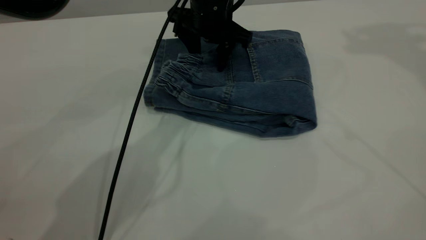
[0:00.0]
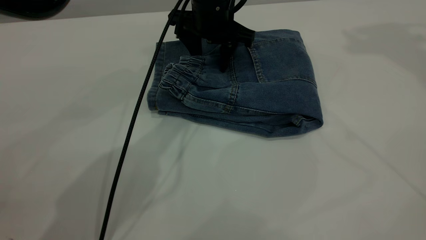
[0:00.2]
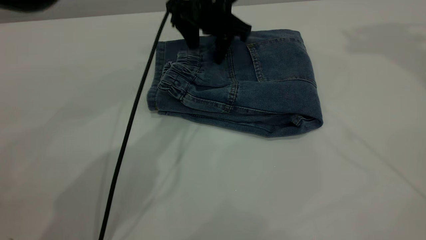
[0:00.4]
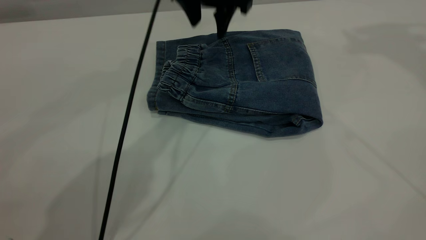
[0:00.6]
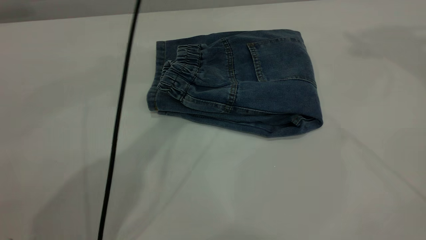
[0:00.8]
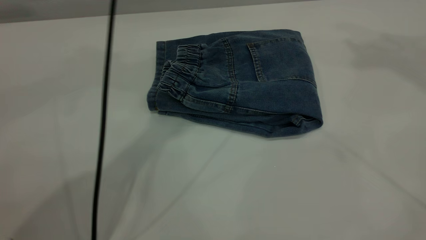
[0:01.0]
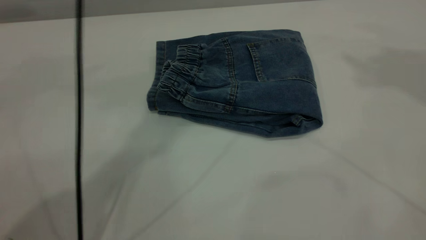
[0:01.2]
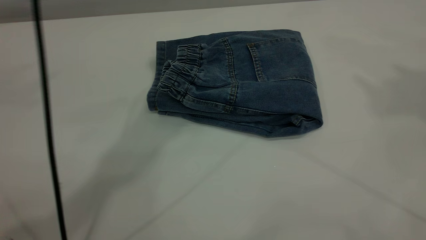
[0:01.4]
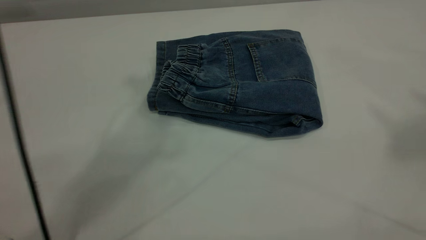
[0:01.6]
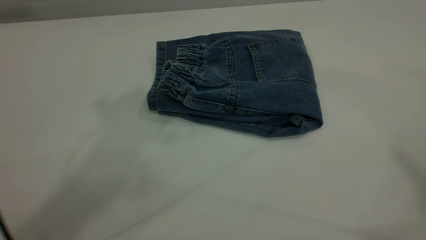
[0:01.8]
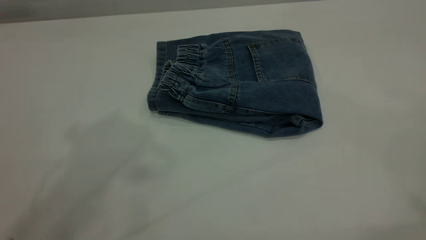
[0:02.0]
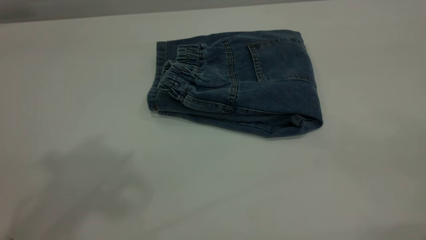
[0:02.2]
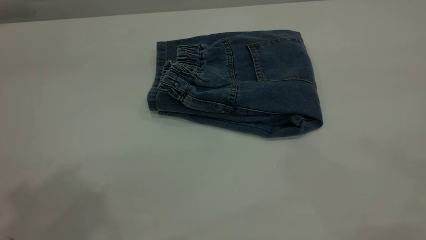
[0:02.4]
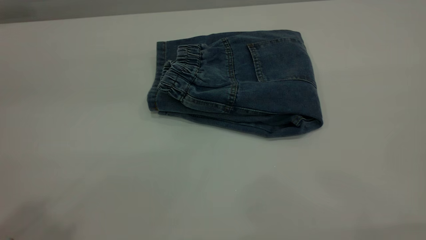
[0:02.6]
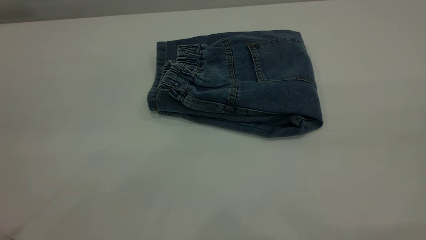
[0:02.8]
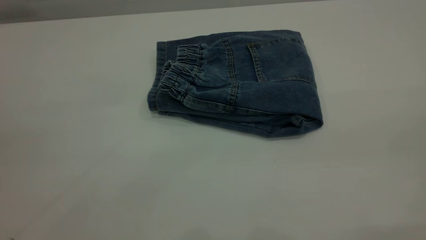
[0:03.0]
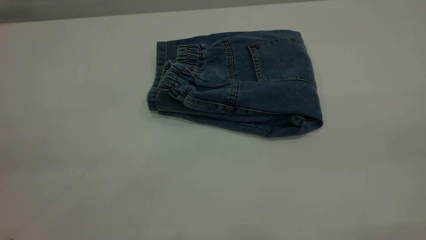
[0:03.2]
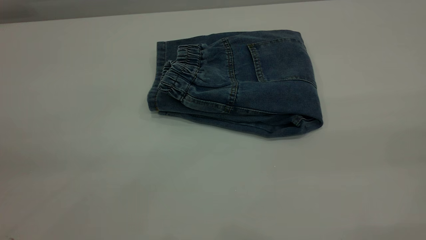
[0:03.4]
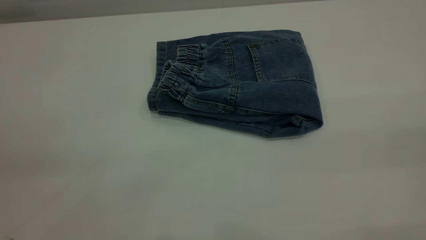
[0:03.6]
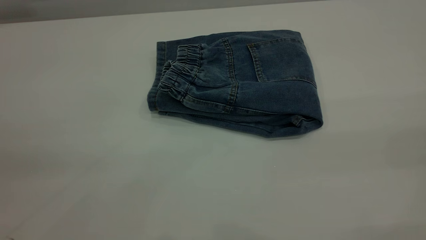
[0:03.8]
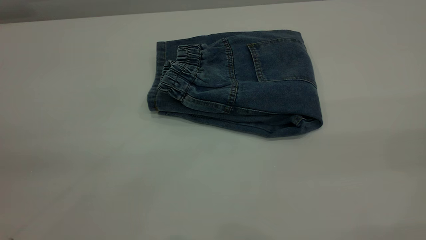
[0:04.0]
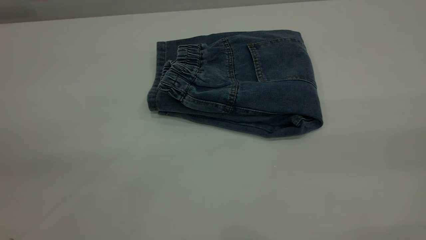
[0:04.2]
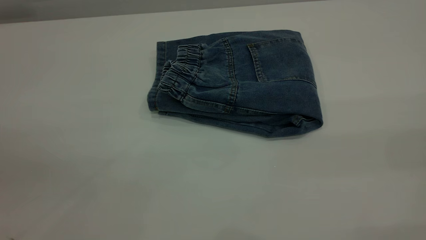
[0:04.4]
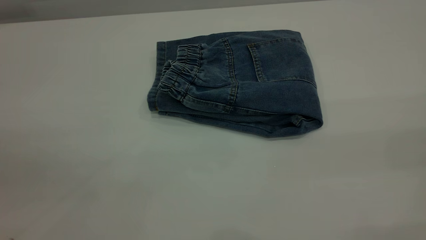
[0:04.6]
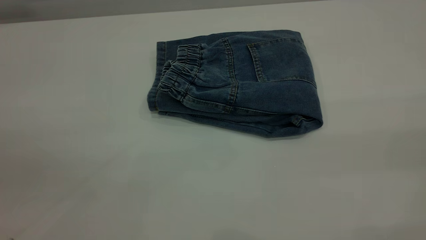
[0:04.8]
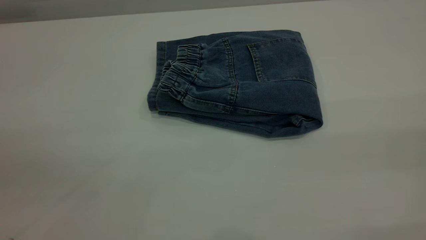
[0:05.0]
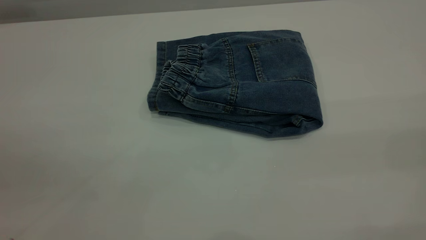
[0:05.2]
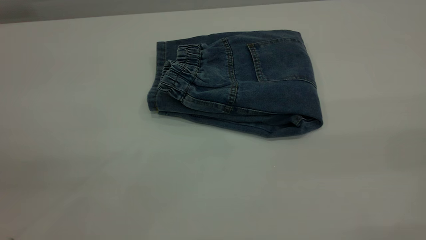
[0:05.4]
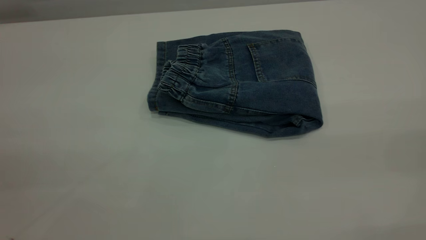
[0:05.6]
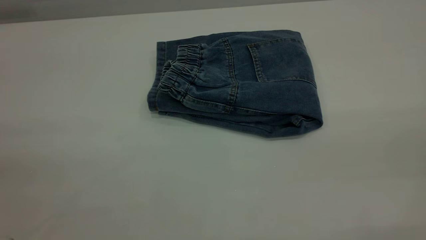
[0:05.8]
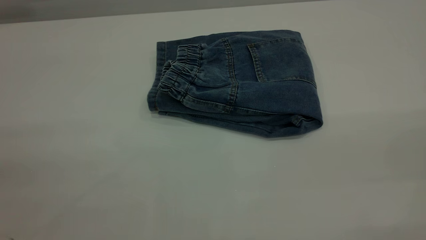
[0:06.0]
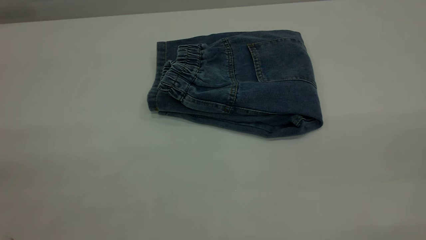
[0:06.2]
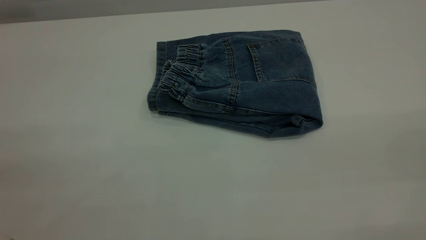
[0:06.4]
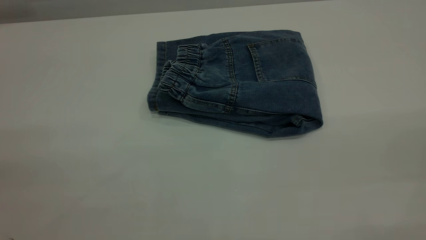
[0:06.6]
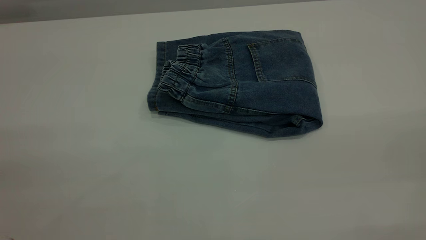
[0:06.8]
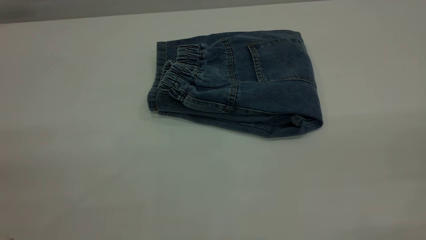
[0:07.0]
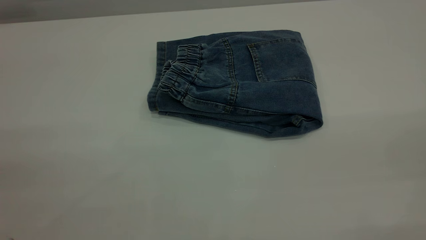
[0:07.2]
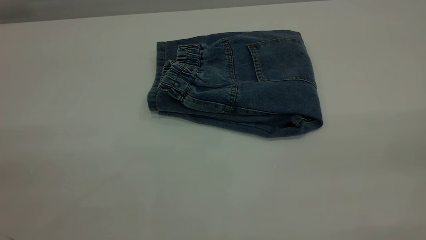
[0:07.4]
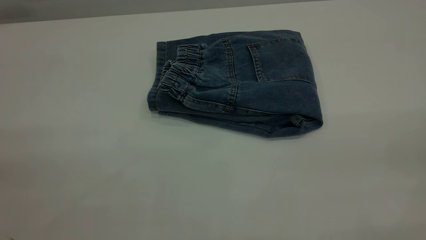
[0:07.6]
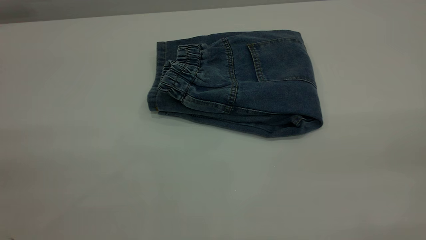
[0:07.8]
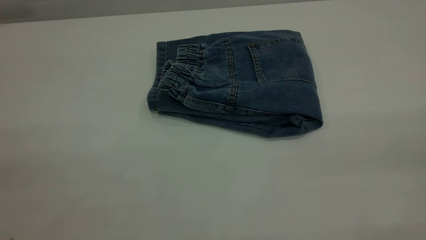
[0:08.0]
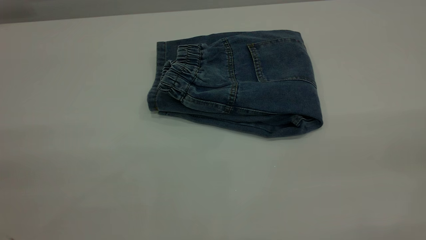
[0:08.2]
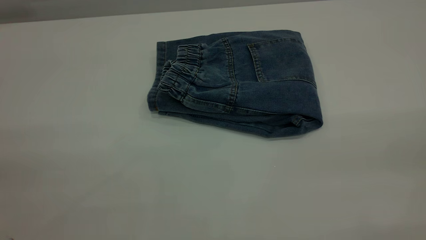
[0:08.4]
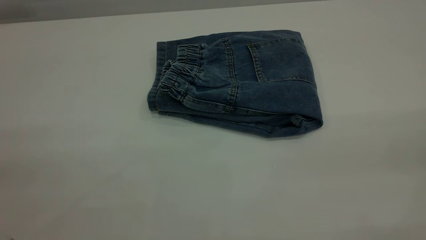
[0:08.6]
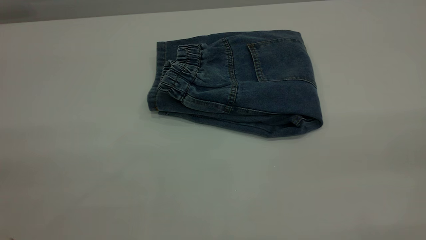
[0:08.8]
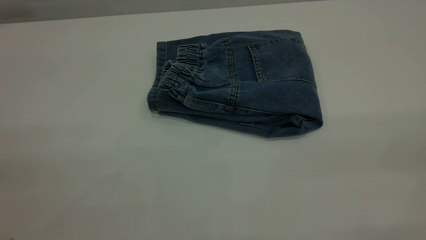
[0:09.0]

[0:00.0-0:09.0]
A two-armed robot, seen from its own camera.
0:00.0 to 0:01.6: The right gripper moves backward and upward, roughly 25 cm. Meanwhile the left gripper moves upward, about 35 cm.
0:01.6 to 0:03.0: The left gripper shifts about 35 cm backward, to the left and downward.
